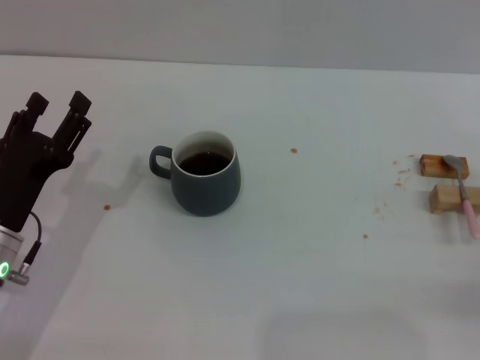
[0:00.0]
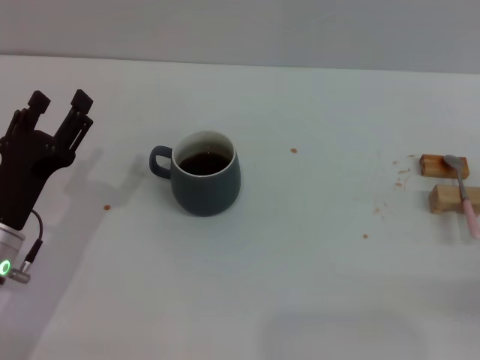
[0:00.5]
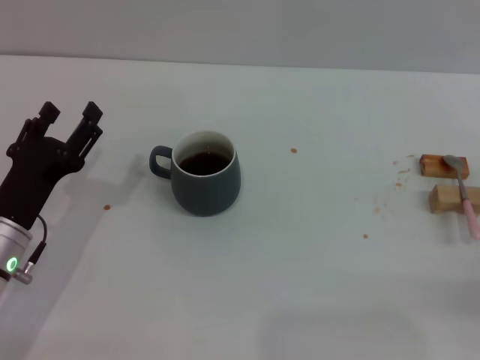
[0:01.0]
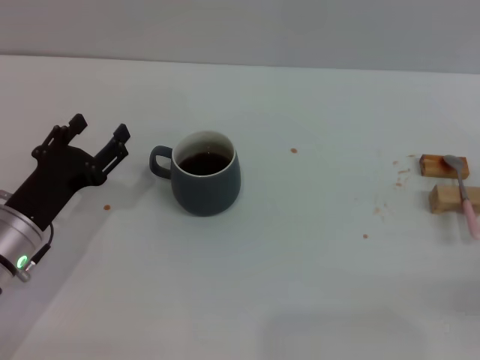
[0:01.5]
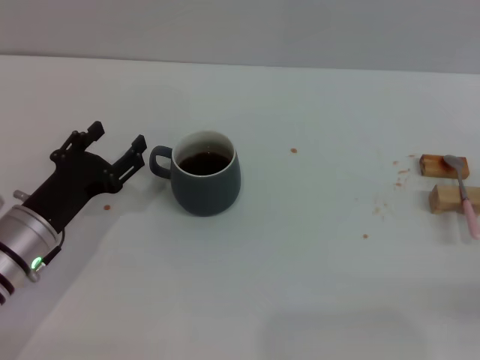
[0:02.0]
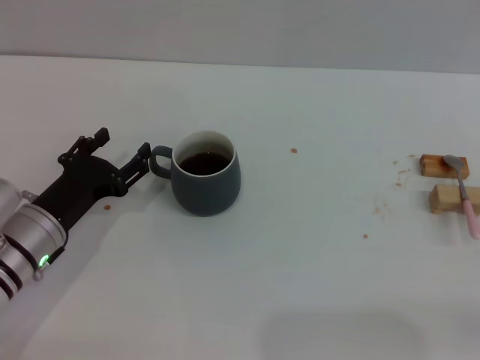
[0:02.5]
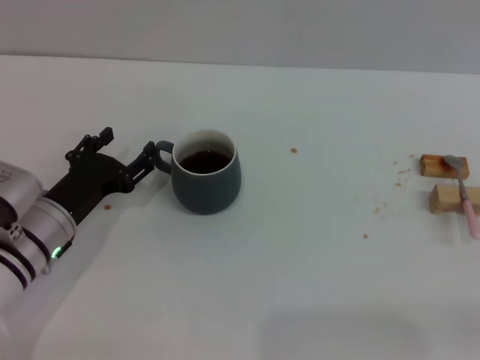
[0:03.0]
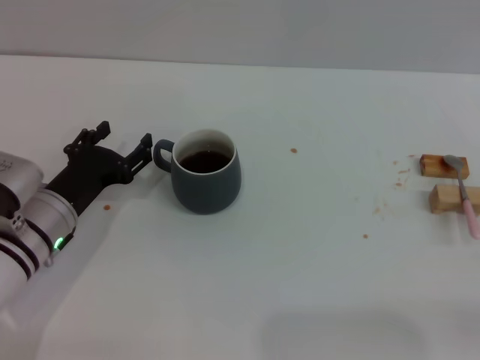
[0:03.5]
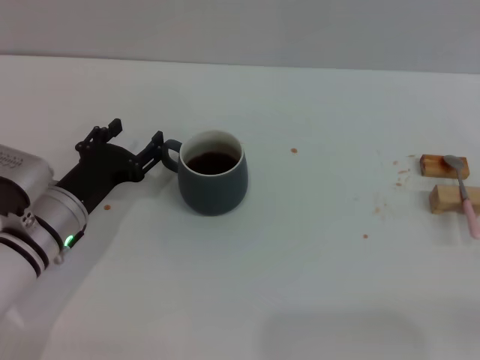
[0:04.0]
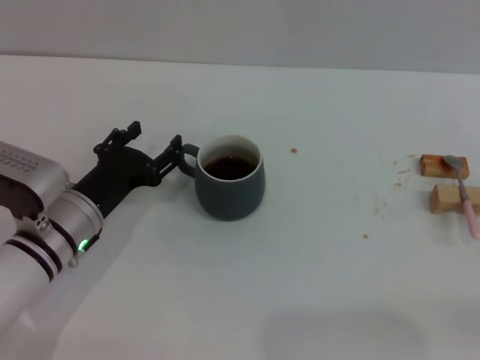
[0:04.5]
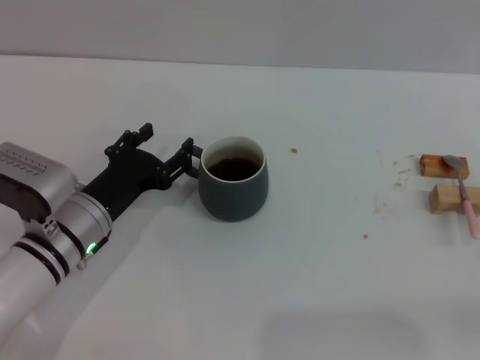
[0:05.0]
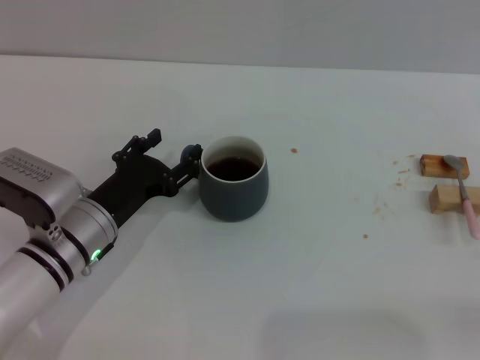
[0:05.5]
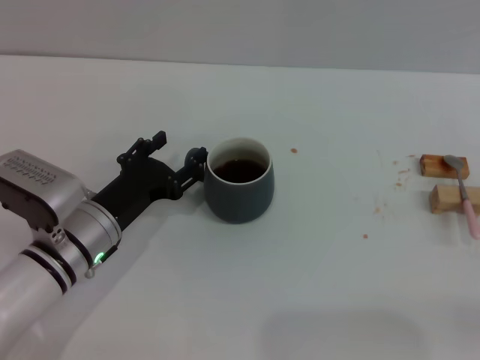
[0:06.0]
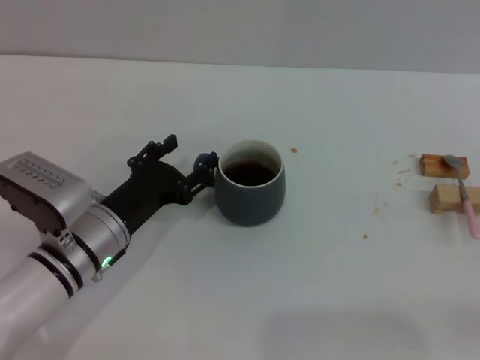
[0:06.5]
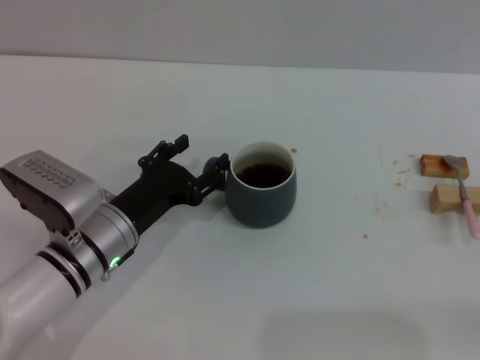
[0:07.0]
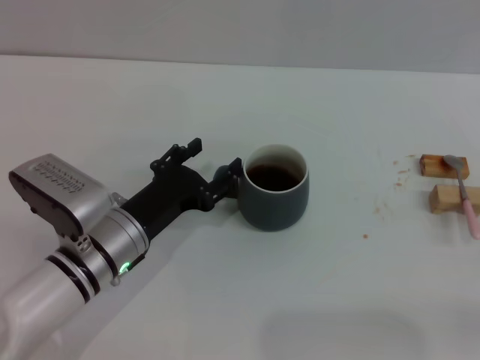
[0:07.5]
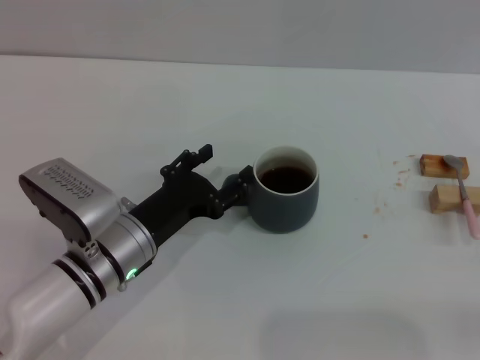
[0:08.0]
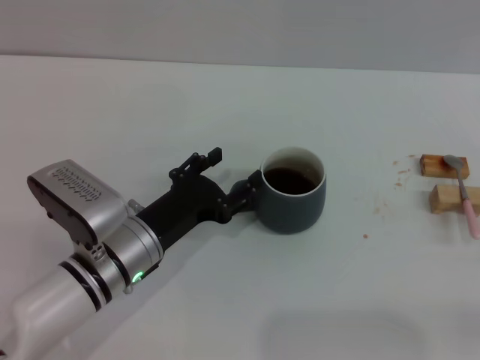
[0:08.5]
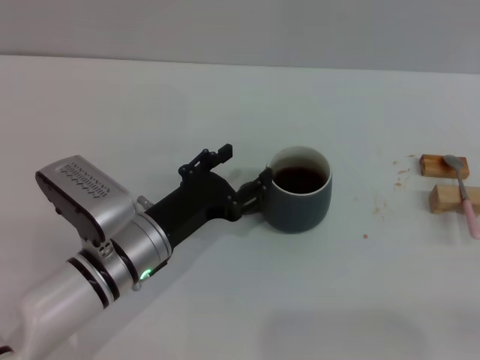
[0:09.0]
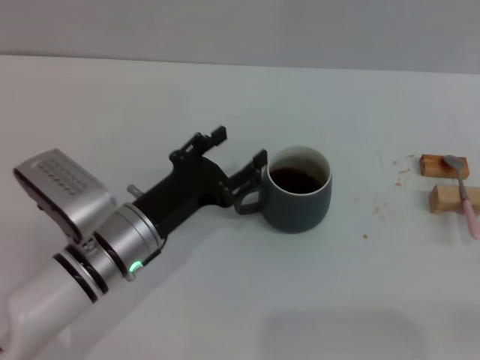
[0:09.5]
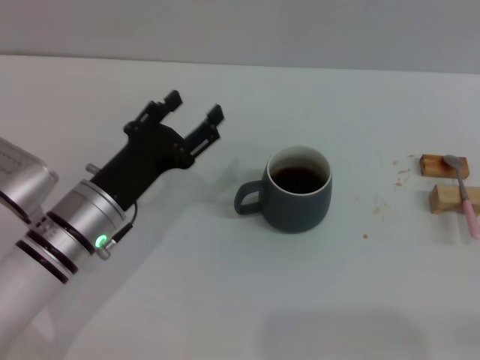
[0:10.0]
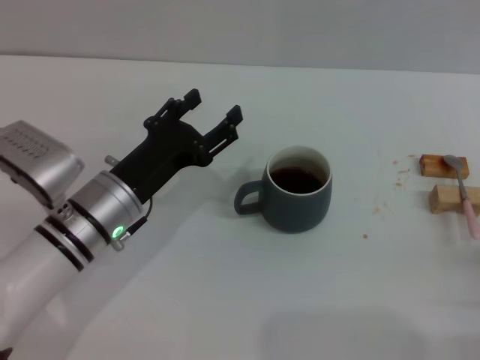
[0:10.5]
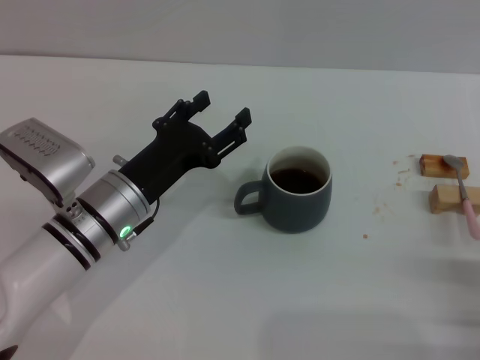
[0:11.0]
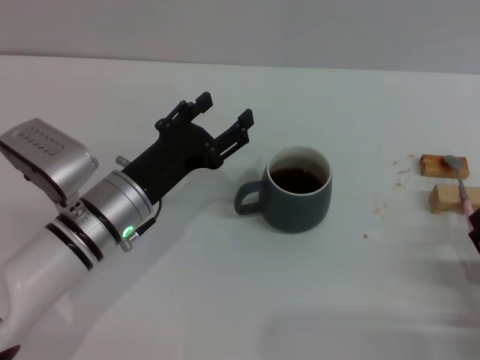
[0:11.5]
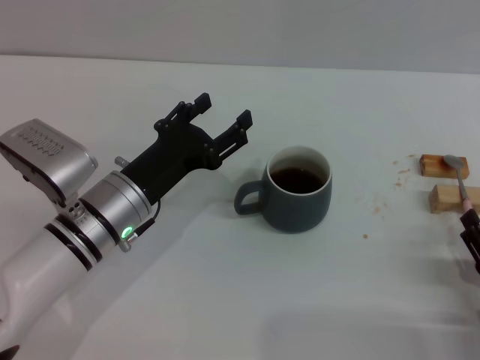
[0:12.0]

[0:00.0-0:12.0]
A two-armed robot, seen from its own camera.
Task of the whole recording: Move the grey cup to the center, lift the pink spoon, stir it three times in the cup, and put the spoon into the cup.
Step, 0:00.0 to 0:09.5: Move the cup with coffee to the center of view with the left gripper.
0:02.0 to 0:06.0: The grippers stay close to where they were, moving slightly.
0:06.0 to 0:10.0: The grippers move only a little.
0:10.0 to 0:12.0: The right gripper moves to the left, some 10 cm.

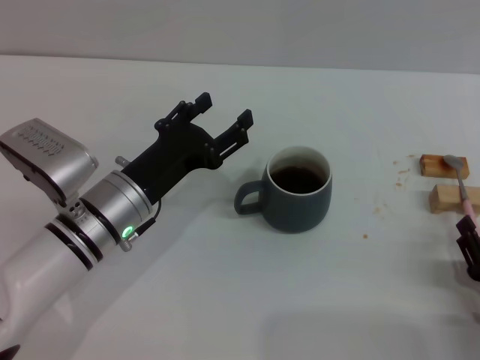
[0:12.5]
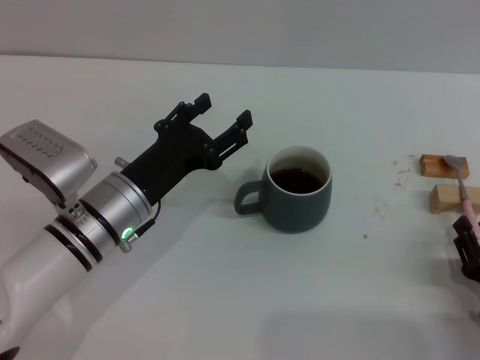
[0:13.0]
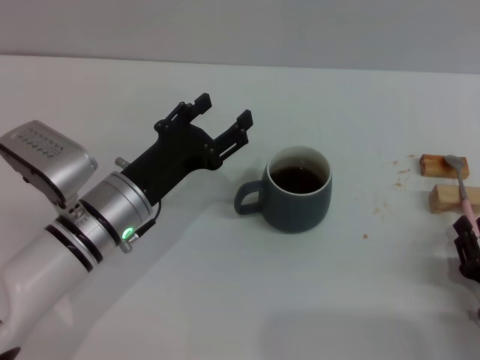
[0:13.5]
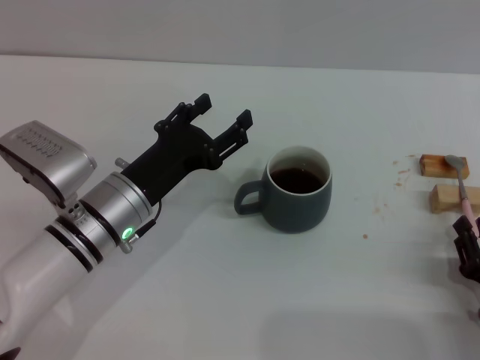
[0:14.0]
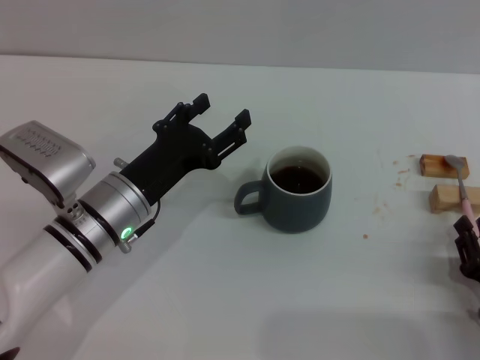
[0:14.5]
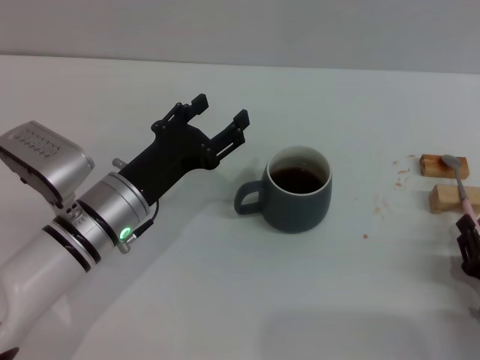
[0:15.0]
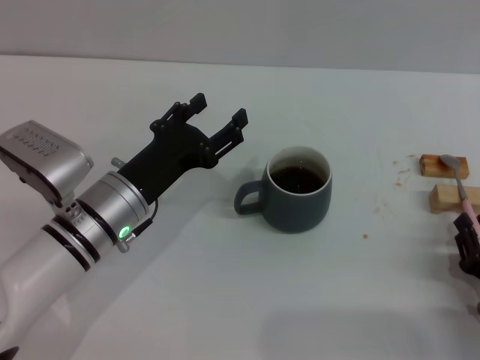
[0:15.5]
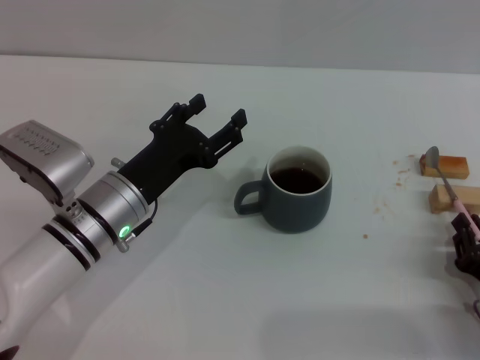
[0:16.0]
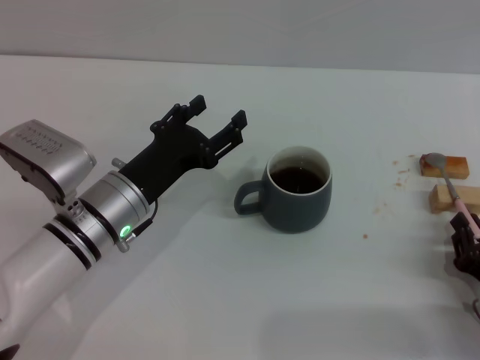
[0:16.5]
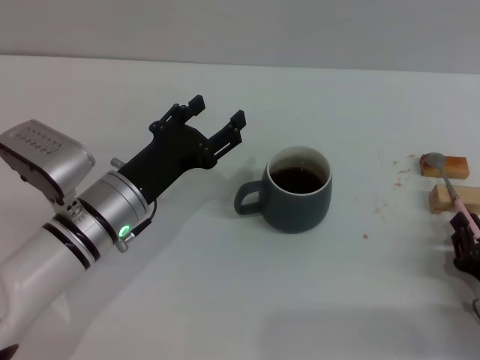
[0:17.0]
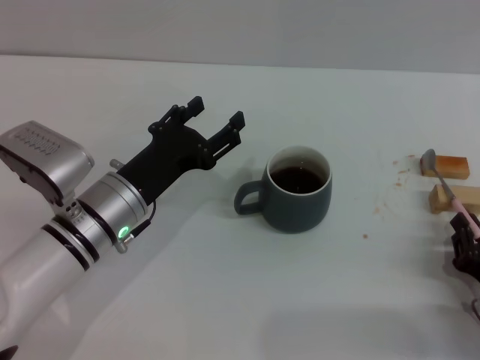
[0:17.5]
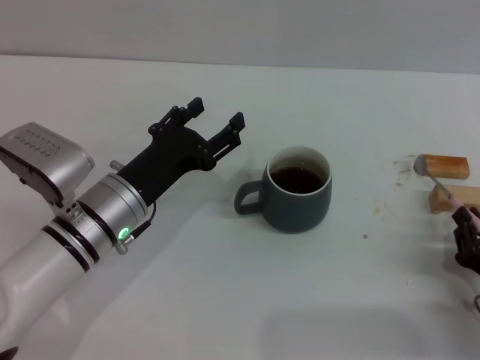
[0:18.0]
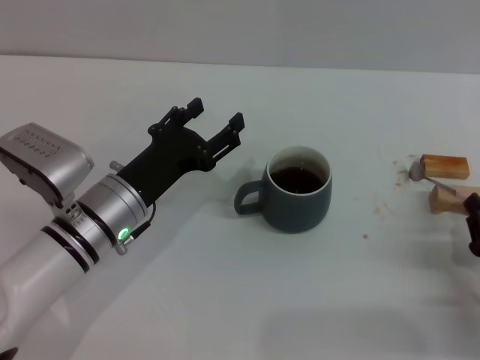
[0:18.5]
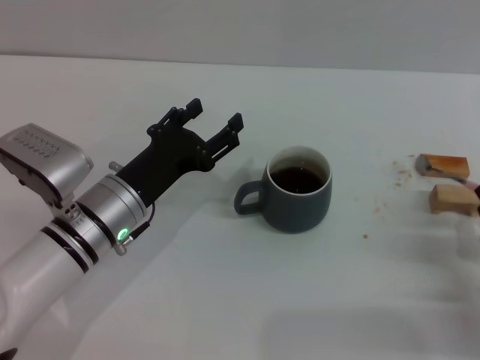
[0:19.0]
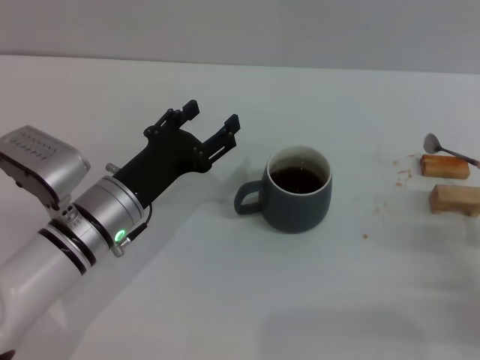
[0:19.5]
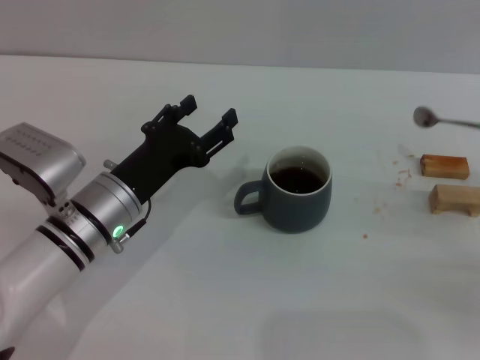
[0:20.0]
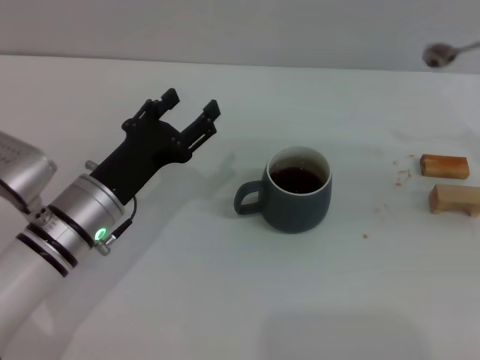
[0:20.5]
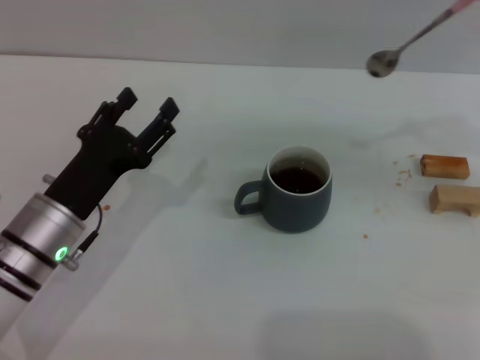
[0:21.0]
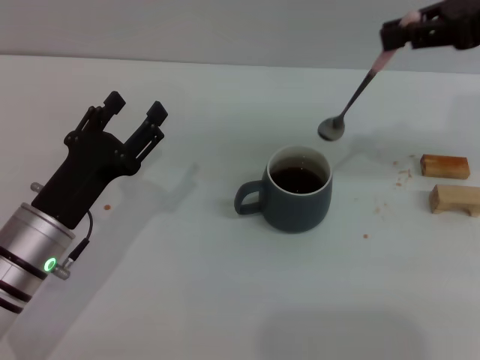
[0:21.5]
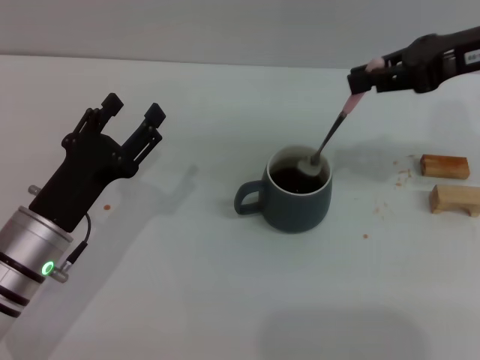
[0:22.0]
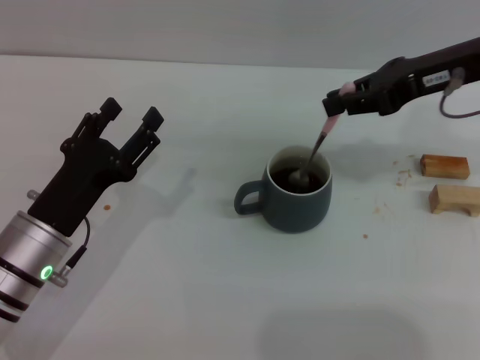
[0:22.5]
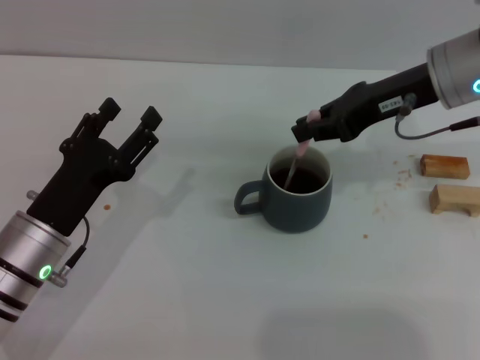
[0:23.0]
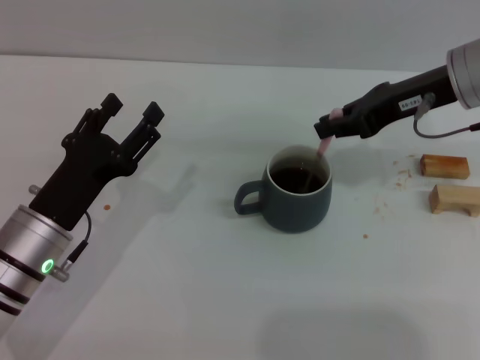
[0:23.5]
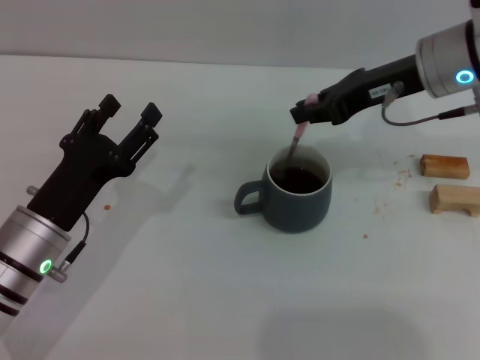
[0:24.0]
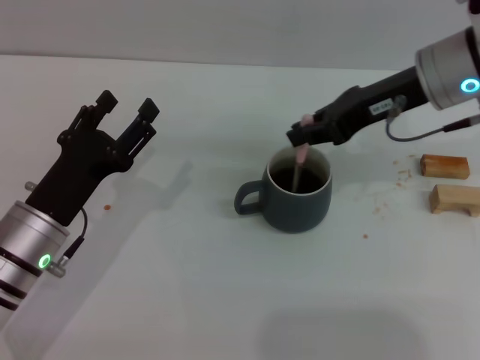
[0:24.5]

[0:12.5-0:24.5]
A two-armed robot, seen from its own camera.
Task of the whole recording: Move the grey cup to the center, lift the pink spoon, stir it three times in the cup, and put the spoon into the cup.
Step, 0:12.5 to 0:20.0: Pick up the spoon with the right gripper.
0:12.5 to 0:14.5: The right gripper closes its fingers.
0:14.5 to 0:16.5: Neither gripper changes place.
0:16.5 to 0:18.5: The grippers move only a little.
0:18.5 to 0:20.5: The right gripper is displaced upward, forward and to the right by some 25 cm.
0:20.5 to 0:22.5: The left gripper changes place by roughly 5 cm, while the right gripper heads to the left and forward, covering roughly 20 cm.
0:22.5 to 0:24.5: The grippers make only small movements.

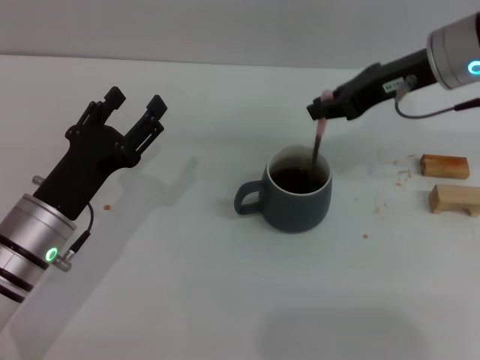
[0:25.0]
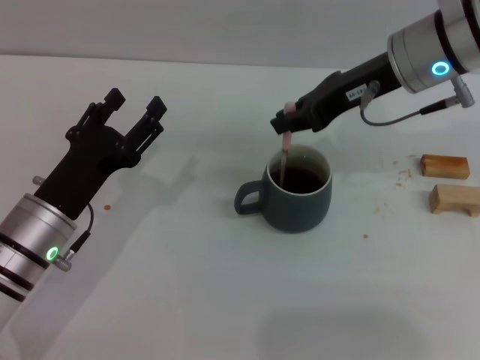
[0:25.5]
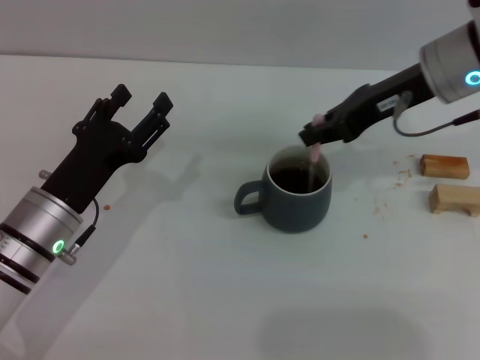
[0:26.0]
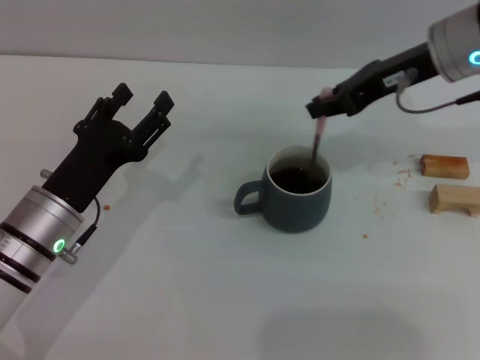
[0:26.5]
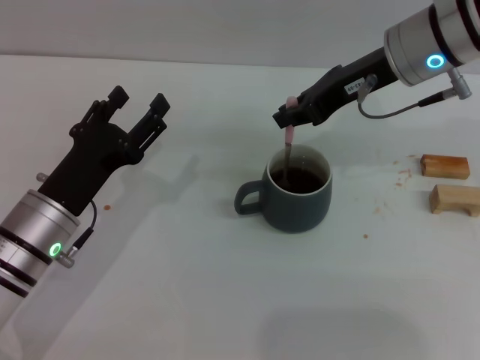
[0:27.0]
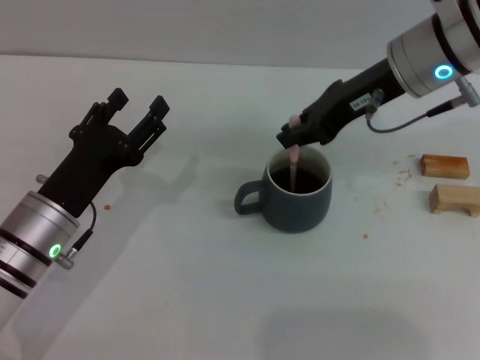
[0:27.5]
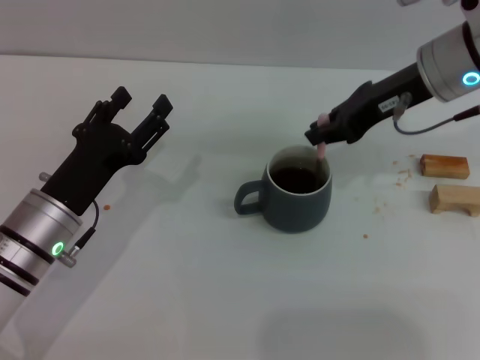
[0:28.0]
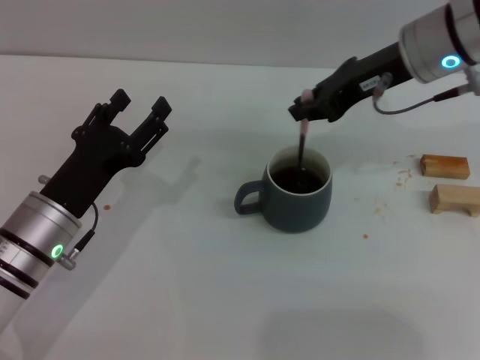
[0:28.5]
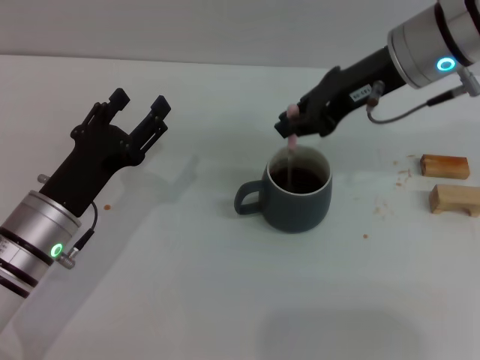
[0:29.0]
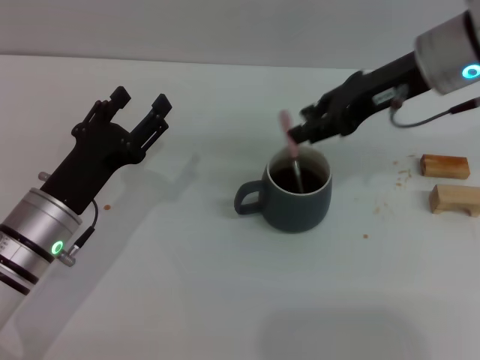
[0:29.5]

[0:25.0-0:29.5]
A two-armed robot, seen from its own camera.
Task of the whole recording: Move the grey cup to the center, lift the pink spoon, stir it three times in the cup, and put the spoon into the cup.
0:25.0 to 0:29.5: The grippers make only small movements.
